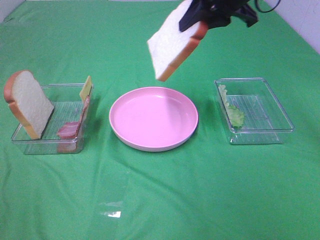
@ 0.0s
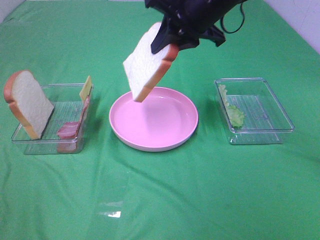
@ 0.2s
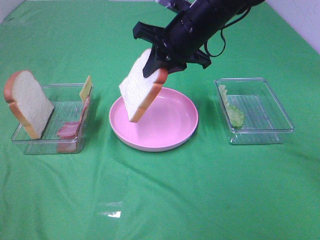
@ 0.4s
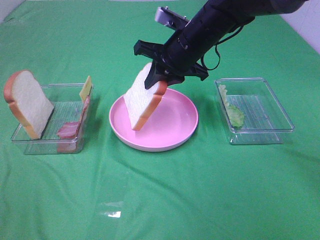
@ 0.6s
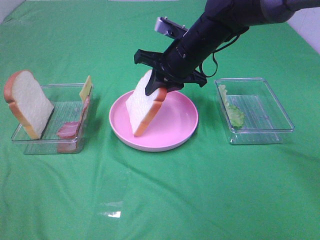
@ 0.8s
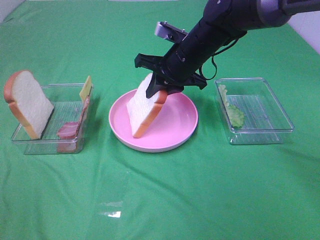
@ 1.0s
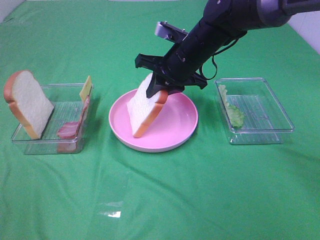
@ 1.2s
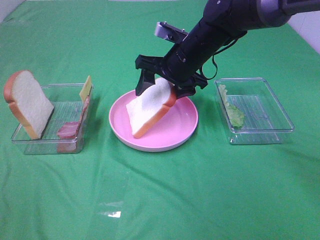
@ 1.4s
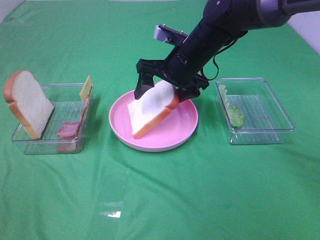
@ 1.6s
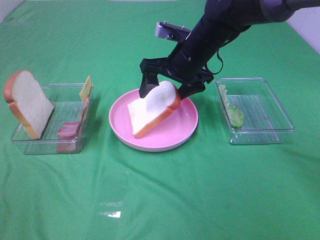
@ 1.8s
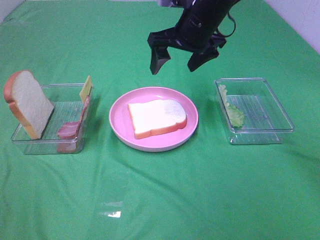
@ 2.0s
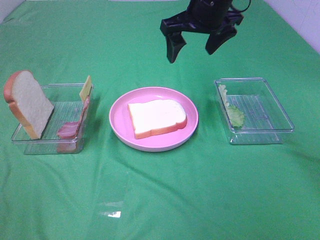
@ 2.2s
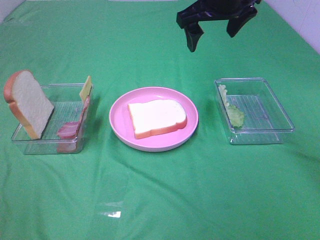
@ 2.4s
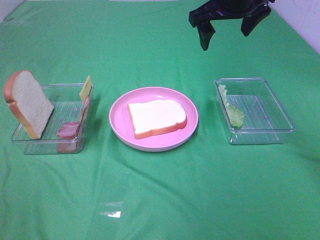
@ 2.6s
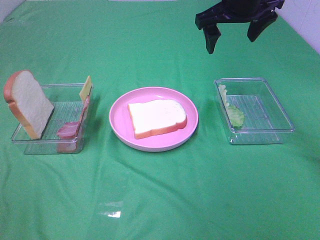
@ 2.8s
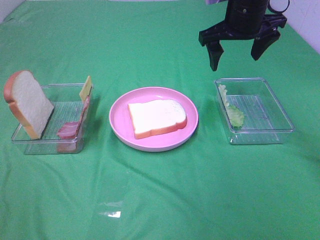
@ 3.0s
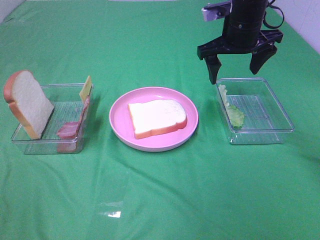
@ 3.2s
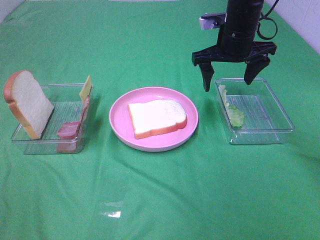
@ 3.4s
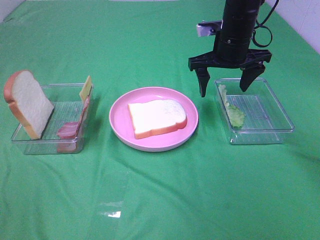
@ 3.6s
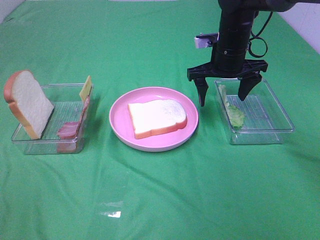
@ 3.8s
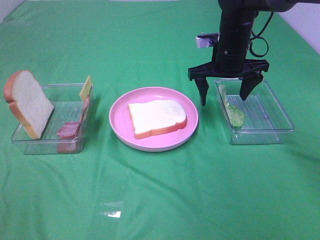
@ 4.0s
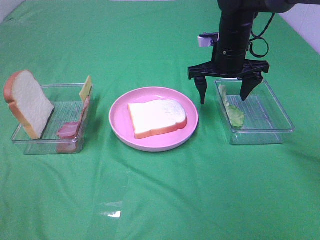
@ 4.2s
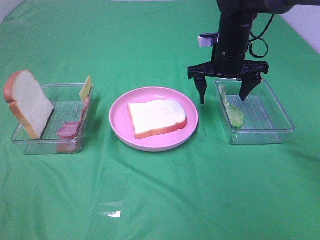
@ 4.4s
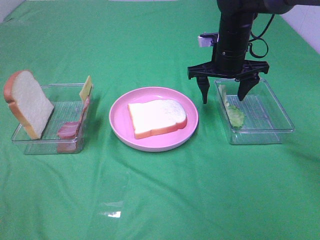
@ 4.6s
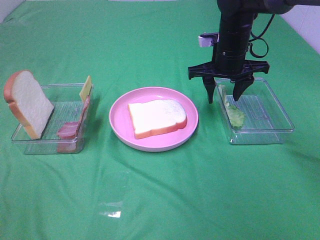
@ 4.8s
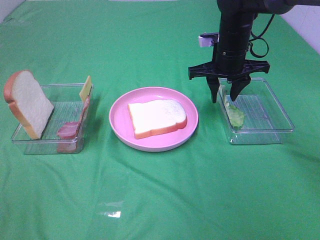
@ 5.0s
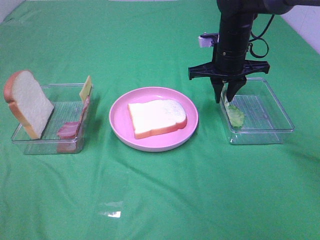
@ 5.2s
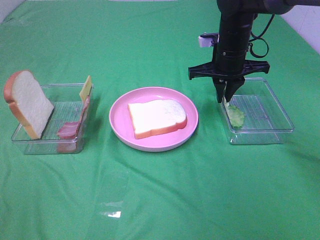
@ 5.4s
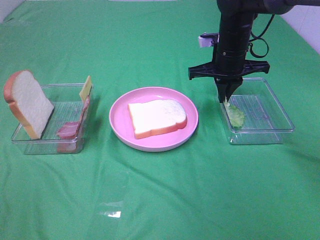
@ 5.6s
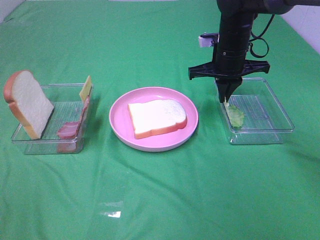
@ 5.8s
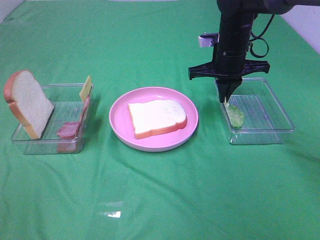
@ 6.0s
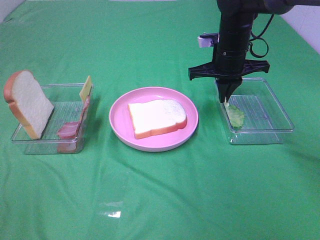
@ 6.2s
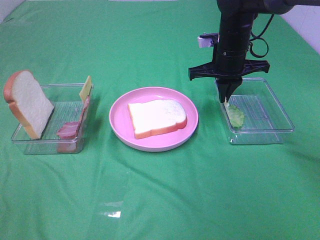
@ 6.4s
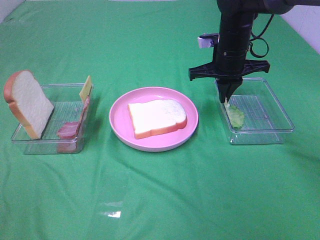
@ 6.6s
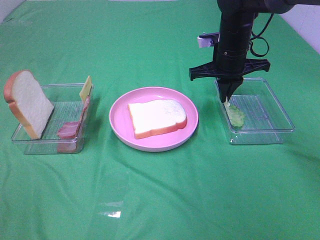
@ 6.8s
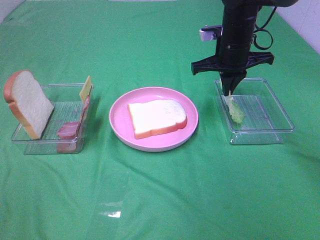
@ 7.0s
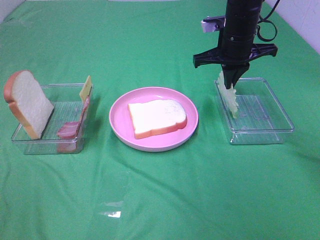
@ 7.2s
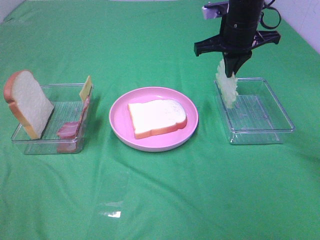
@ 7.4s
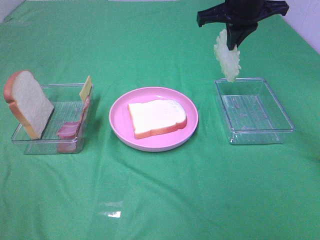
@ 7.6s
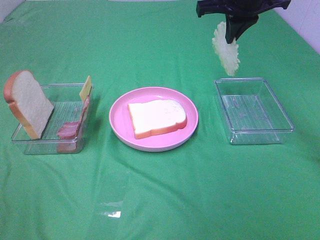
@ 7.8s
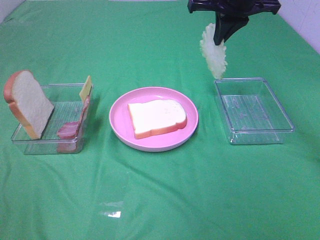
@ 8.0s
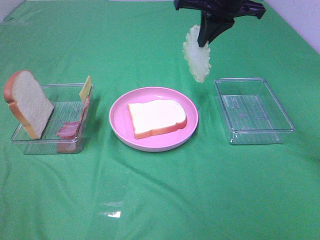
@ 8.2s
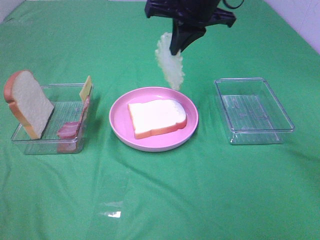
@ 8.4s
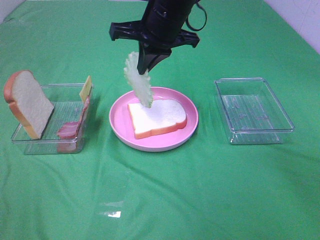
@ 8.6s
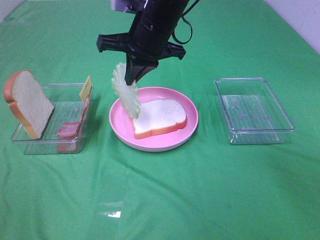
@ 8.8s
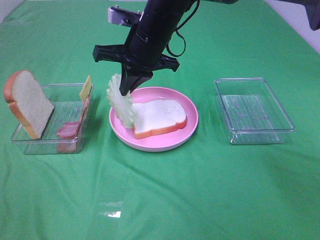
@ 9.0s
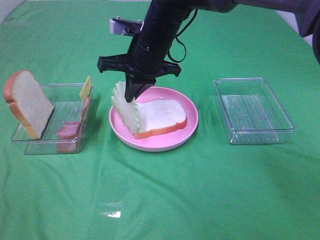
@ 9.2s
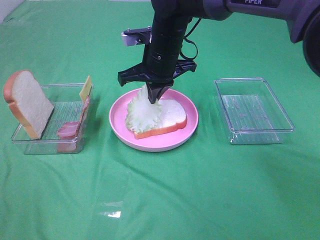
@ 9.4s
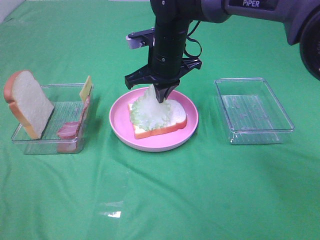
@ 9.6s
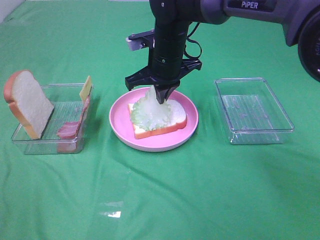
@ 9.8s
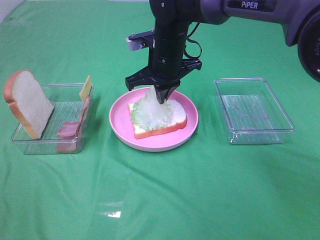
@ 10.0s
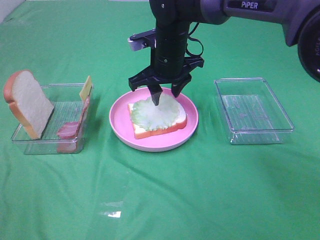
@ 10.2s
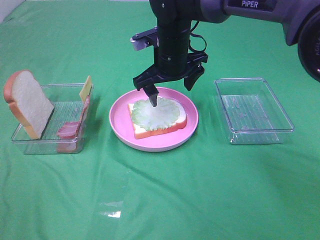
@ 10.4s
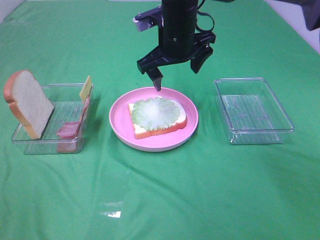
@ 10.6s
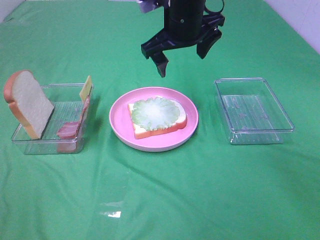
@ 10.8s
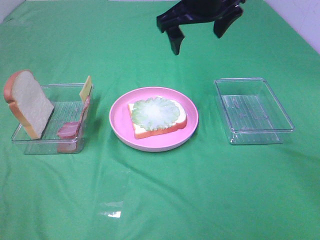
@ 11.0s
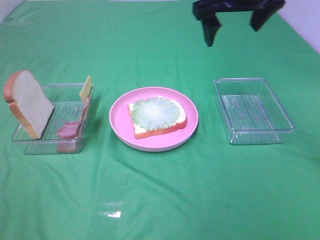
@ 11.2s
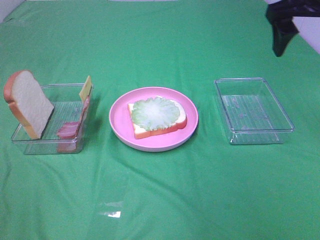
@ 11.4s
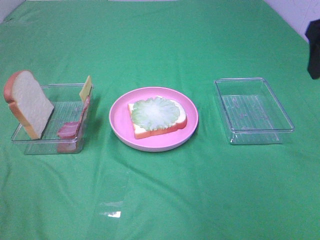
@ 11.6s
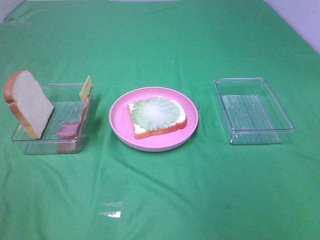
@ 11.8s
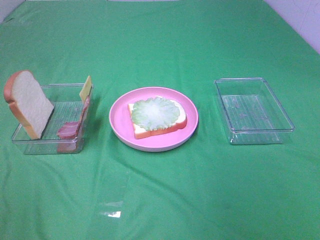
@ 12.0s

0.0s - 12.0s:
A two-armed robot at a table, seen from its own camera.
Task of the whole recording: Make sandwiches.
Step, 0.0s - 2.0s: Right hand:place the bread slice on the plate.
Step, 2.2s - 6.2s: Right hand:grab the lettuce slice.
Step, 6.4s - 10.4s: Right hand:place the lettuce slice on the bread slice.
0.0s - 1.6s: The right gripper is displaced downward and to the left by roughly 15 cm, and opens its fingers.
1.6s - 3.0s: The right gripper goes some 10 cm upward and to the right.
3.0s - 4.4s: The right gripper moves downward, roughly 10 cm.
4.4s - 6.0s: The right gripper closes its fingers.
6.0s - 7.6s: The right gripper moves upward, roughly 10 cm.
7.6s - 9.0s: The right gripper goes roughly 15 cm to the left and downward.
9.0s - 10.4s: The right gripper shifts by some 5 cm, and opens.
10.4s - 12.0s: The right gripper travels backward, to the right and upward by approximately 40 cm.

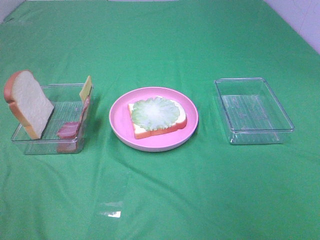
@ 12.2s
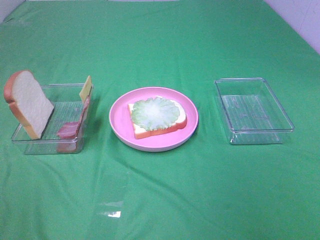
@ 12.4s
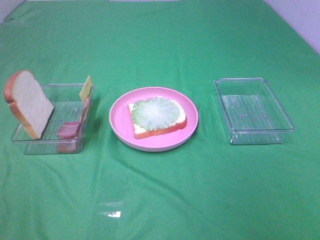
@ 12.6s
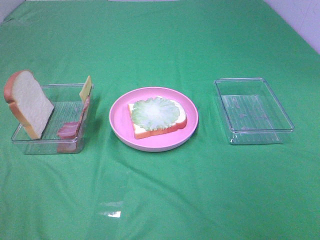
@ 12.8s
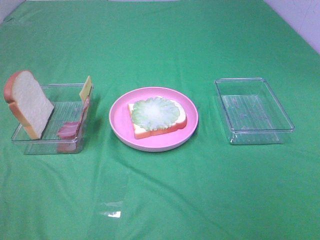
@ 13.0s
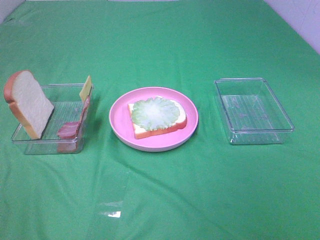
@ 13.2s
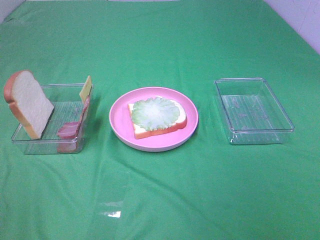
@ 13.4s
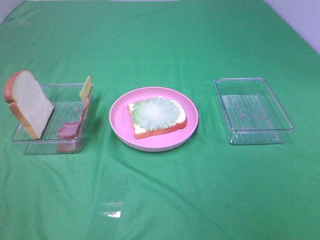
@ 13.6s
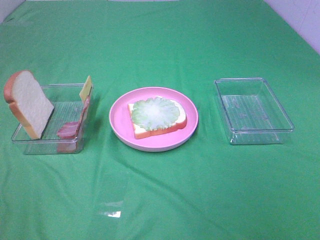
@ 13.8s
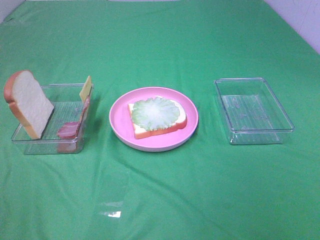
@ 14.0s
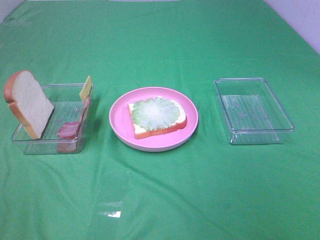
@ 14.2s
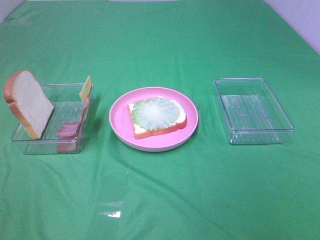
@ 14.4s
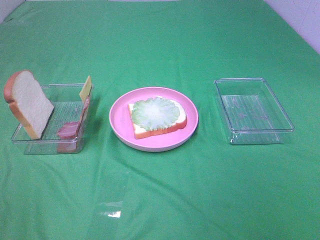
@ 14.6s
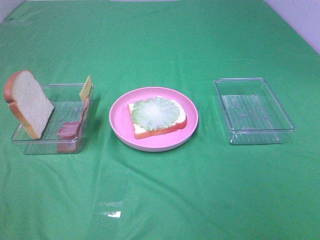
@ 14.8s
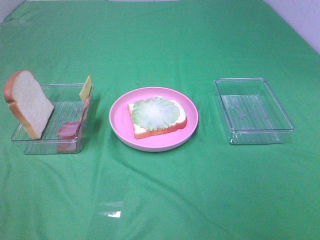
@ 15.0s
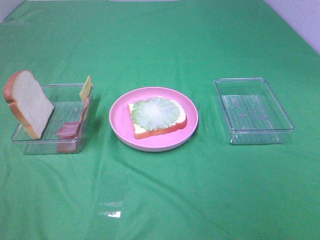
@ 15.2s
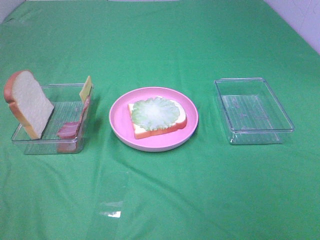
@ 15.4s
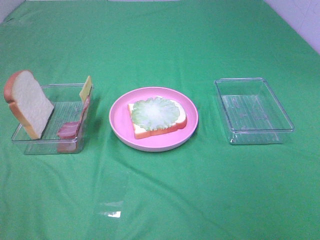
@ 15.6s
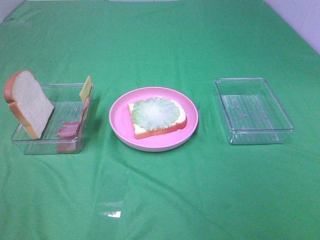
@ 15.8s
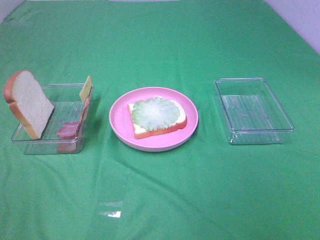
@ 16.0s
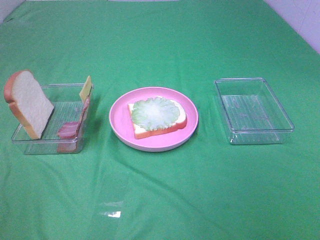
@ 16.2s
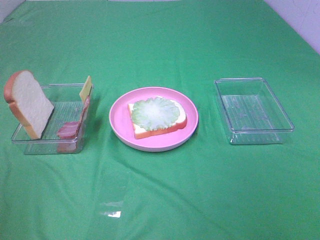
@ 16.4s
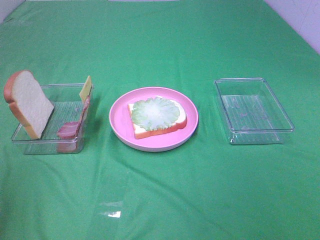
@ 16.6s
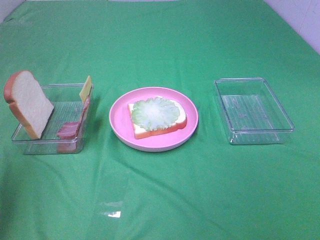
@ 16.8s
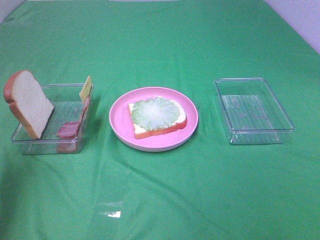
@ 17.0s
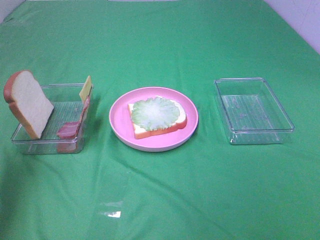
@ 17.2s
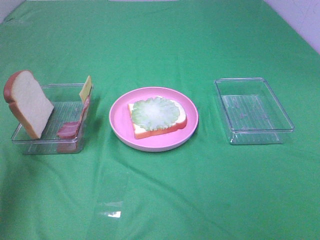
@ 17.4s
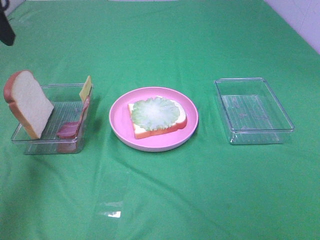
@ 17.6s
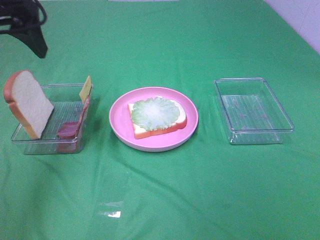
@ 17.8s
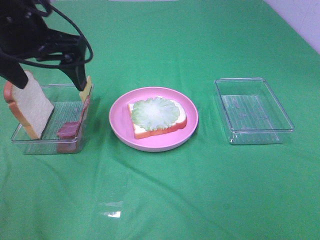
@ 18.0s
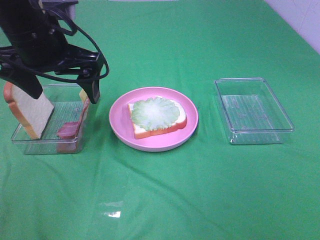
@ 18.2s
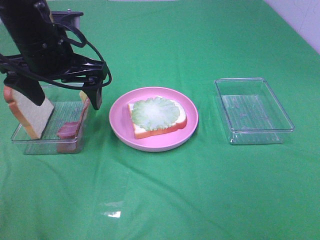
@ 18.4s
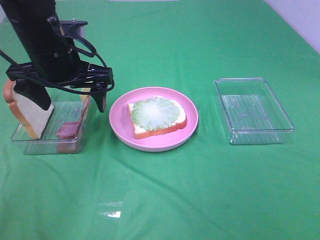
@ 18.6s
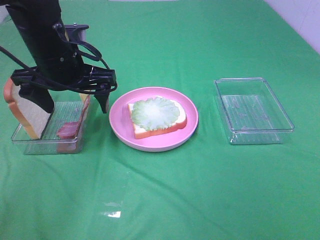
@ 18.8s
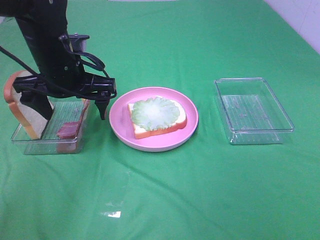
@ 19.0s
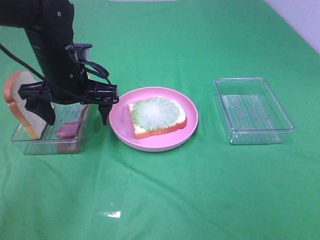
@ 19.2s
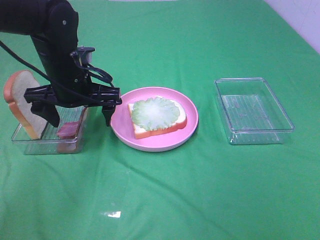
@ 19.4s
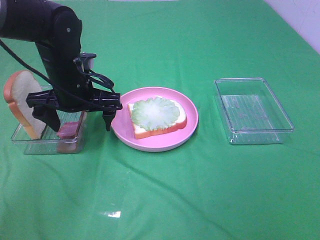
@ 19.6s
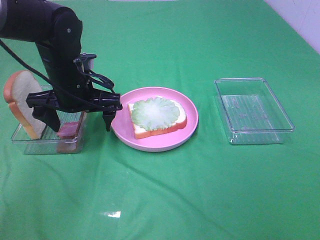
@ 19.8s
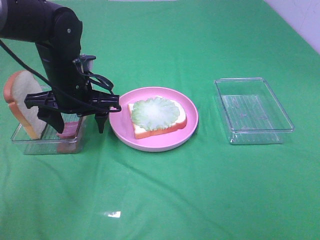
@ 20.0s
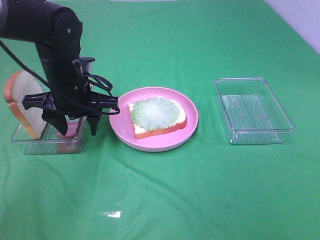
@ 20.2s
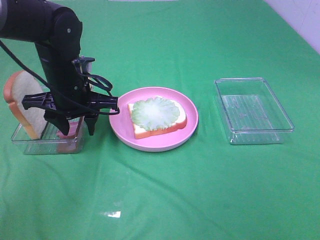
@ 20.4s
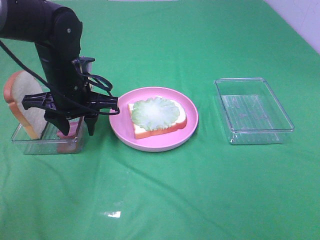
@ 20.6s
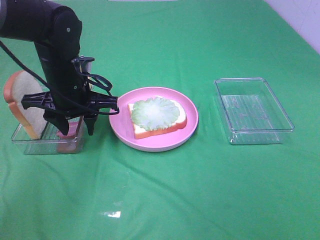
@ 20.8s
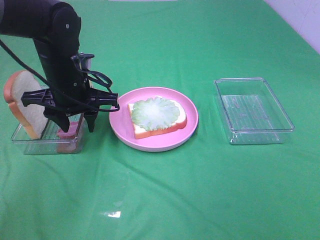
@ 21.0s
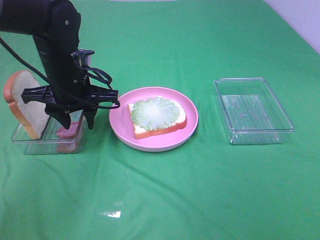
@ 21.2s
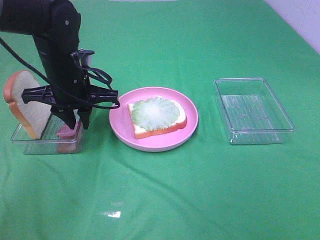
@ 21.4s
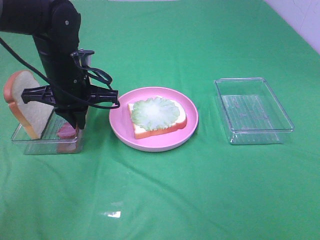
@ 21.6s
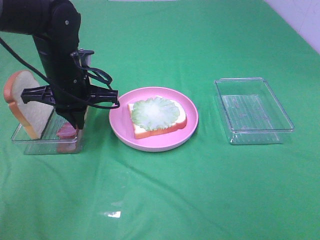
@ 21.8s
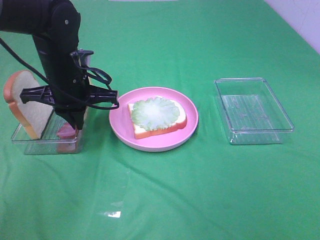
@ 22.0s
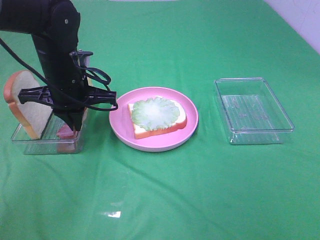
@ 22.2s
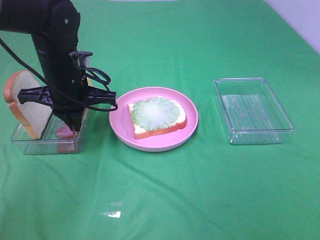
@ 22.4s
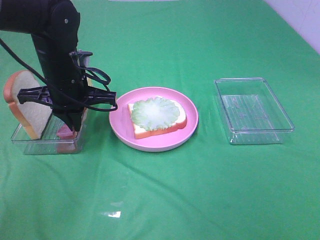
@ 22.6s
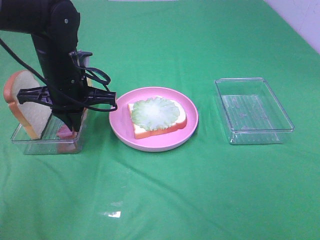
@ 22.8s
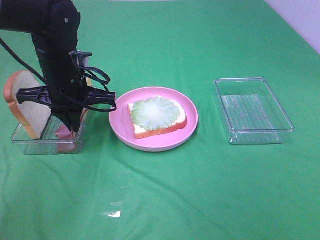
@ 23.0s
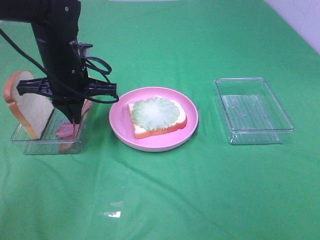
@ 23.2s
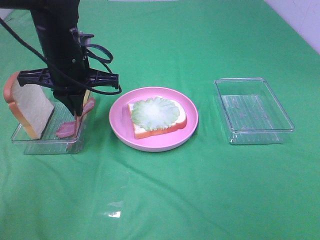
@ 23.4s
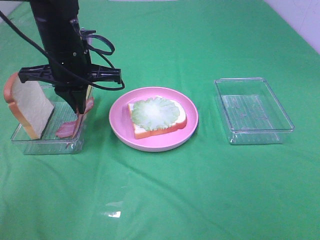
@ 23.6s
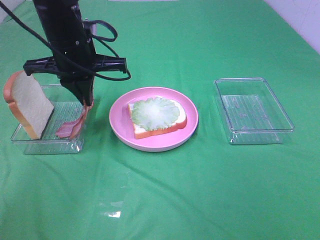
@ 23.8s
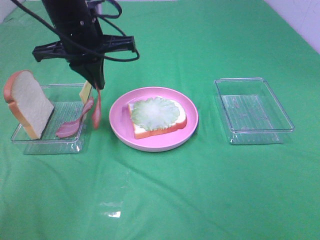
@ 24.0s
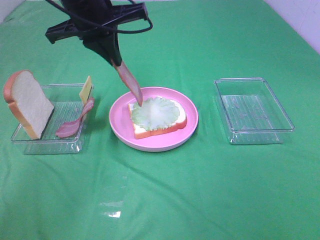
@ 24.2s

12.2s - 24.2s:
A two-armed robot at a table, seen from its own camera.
Task of the whole recording: Make sandwiches.
Step, 12.2s - 22.2s: Left hand:grab the bacon.
13.8s - 15.2s: Neither gripper changes place.
16.6s - 18.2s: The left gripper goes approximately 30 cm forward and to the right.
18.2s - 19.8s: The left gripper travels downward by approximately 10 cm.
19.8s - 21.2s: The left gripper closes up.
21.2s - 22.6s: The left gripper closes.
22.6s - 24.2s: The left gripper moves upward, some 15 cm.
